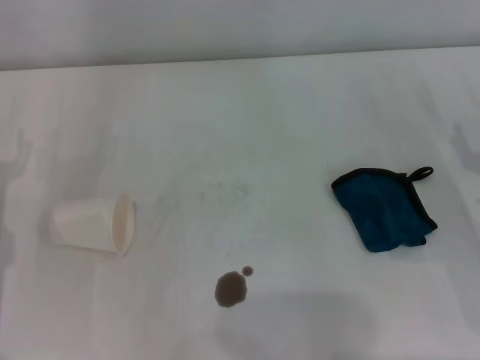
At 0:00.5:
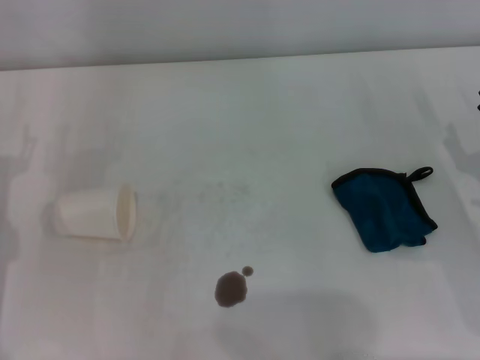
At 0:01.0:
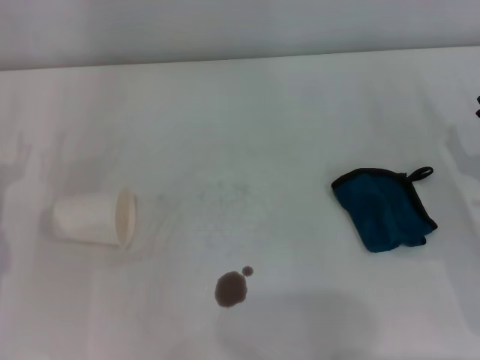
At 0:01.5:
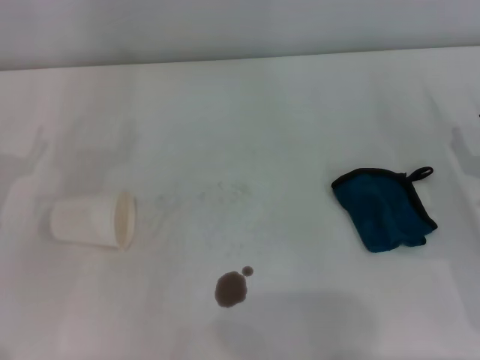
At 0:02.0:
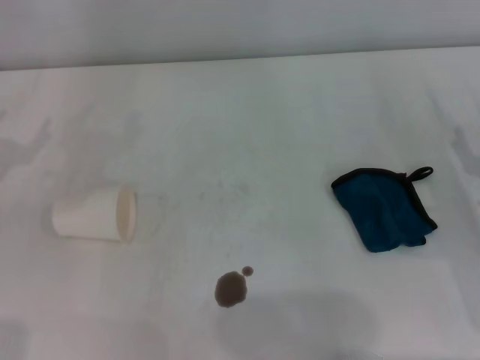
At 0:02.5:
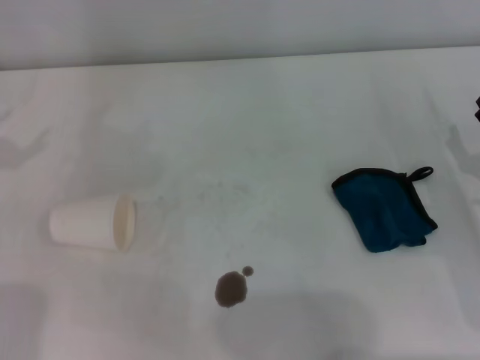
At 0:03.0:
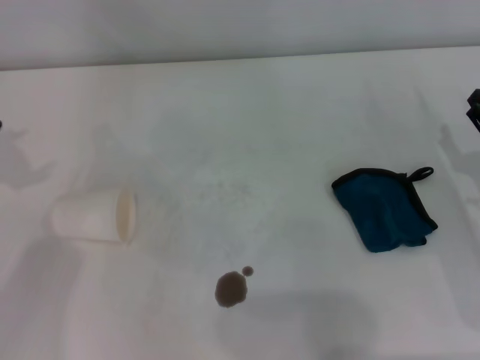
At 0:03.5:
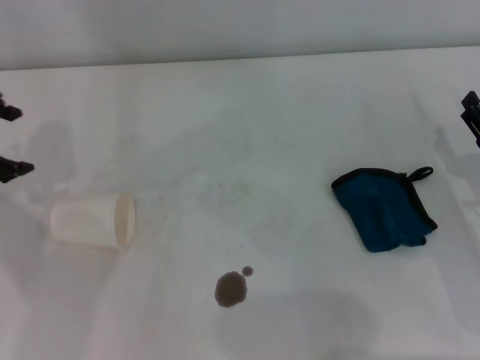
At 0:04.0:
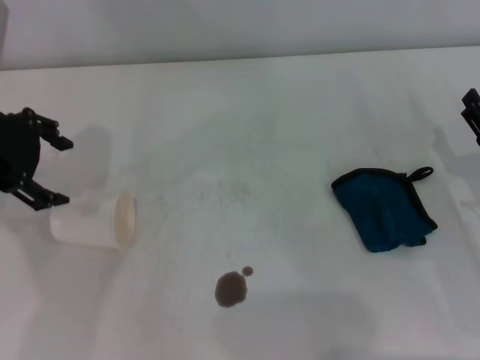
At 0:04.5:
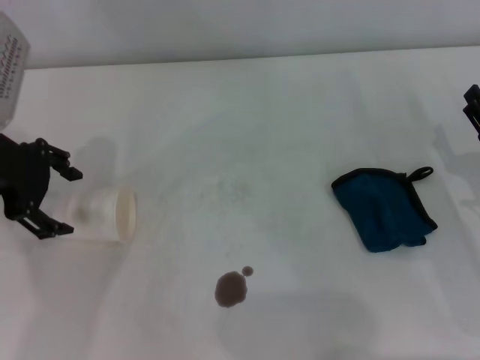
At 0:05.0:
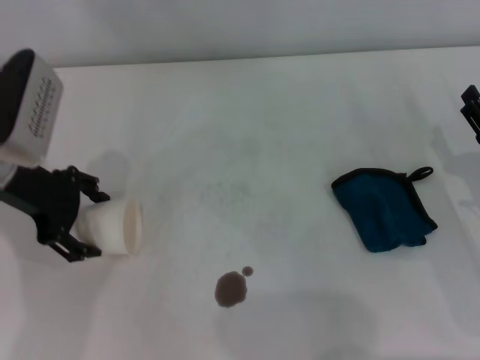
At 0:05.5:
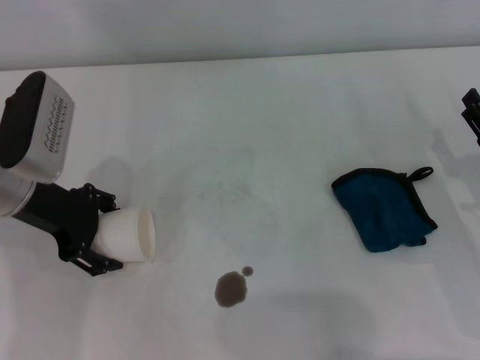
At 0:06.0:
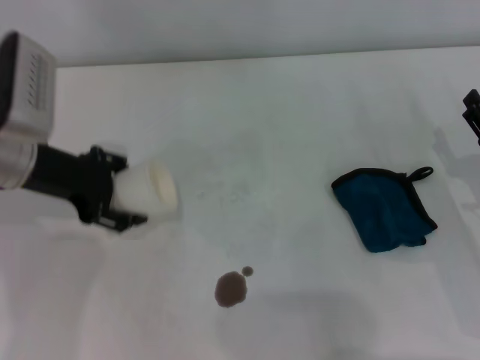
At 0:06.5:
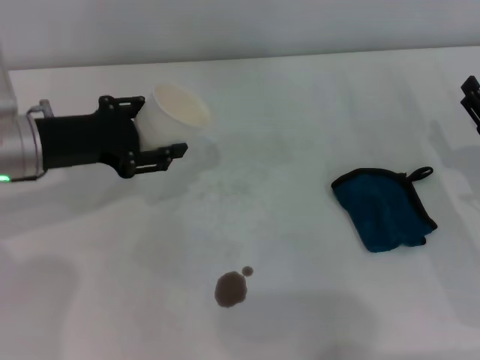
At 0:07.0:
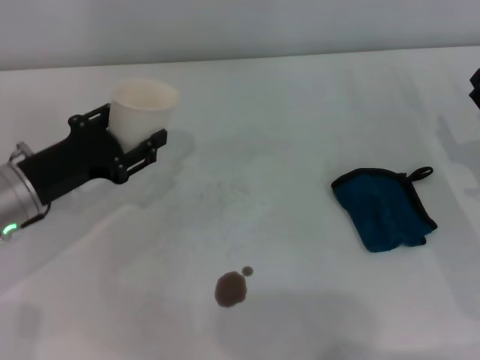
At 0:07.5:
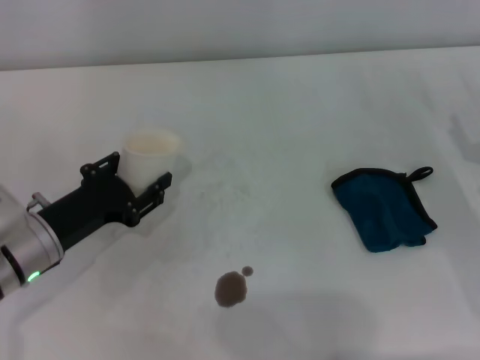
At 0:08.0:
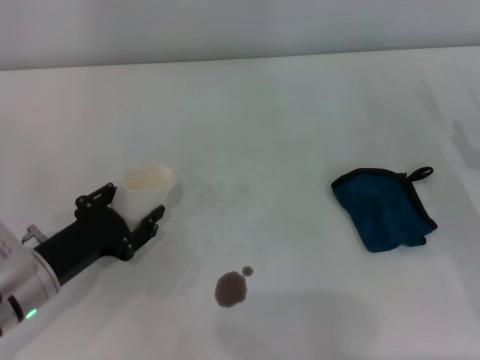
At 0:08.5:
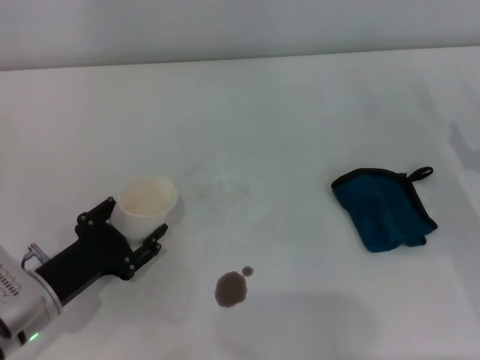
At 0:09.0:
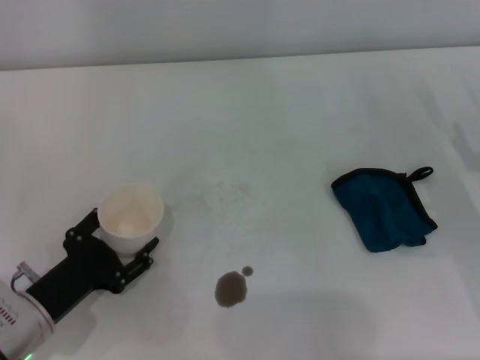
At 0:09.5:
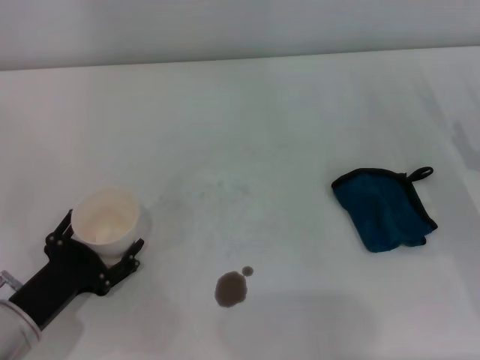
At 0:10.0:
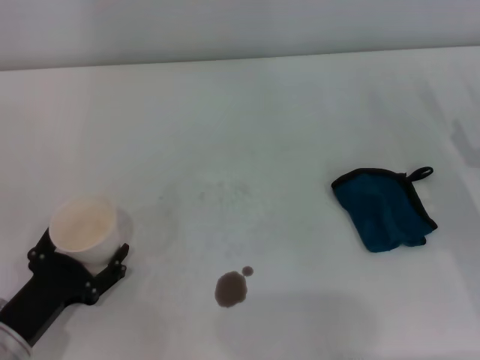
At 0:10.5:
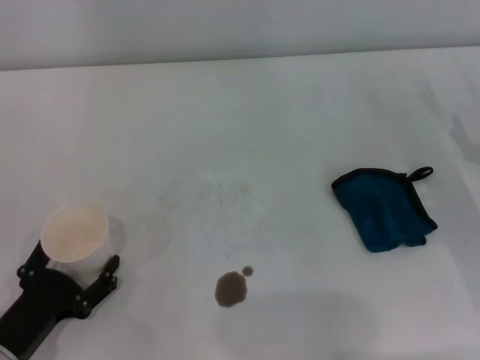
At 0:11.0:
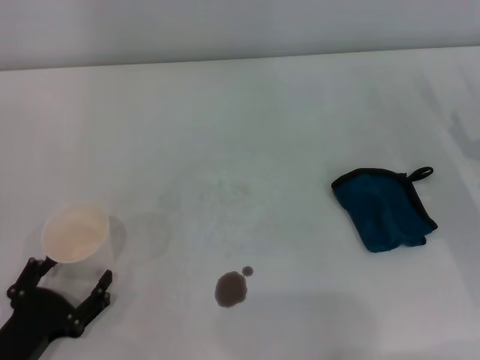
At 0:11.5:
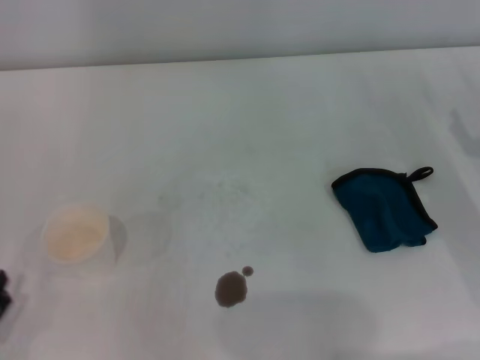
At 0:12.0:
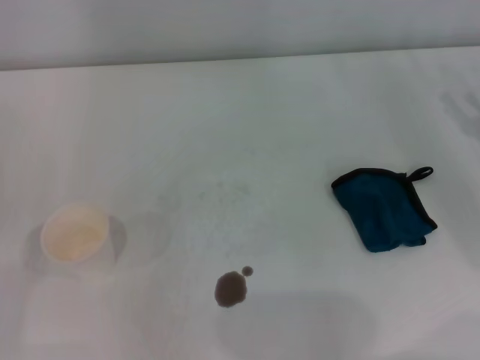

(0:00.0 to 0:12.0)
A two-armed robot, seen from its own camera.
Step, 0:00.0 - 0:05.0: Grasp the paper cup with the left gripper.
Step, 0:05.5 - 0:10.0: Stand the paper cup upright with the left gripper.
0:02.0 - 0:04.0: The left gripper heads upward, to the right and forward, covering some 15 cm.
0:04.0 - 0:06.0: The left gripper is displaced downward by roughly 5 cm, and closes its fingers.
0:06.0 - 0:08.0: The left gripper moves downward and backward, about 15 cm, and closes up.
0:08.0 - 0:10.0: The left gripper travels backward by some 5 cm, and opens its fingers.
0:10.0 - 0:12.0: The left gripper shifts roughly 10 cm to the left.

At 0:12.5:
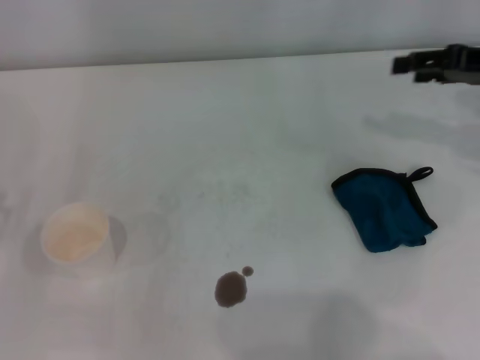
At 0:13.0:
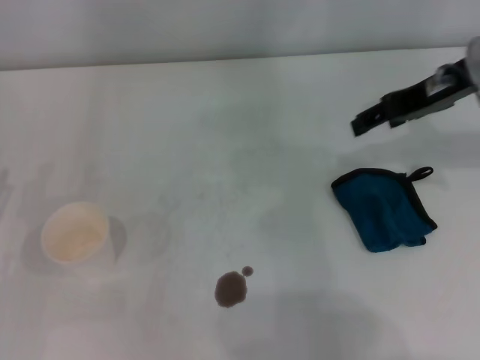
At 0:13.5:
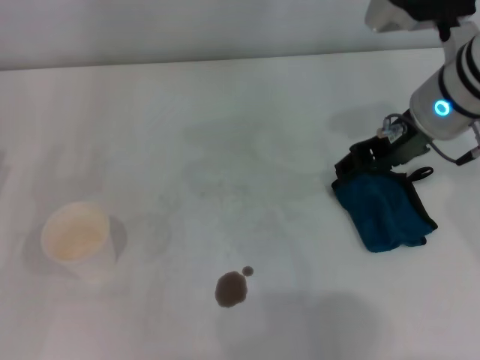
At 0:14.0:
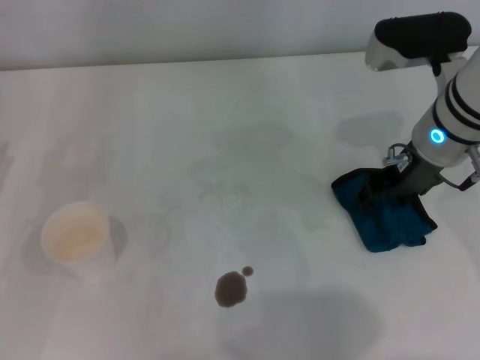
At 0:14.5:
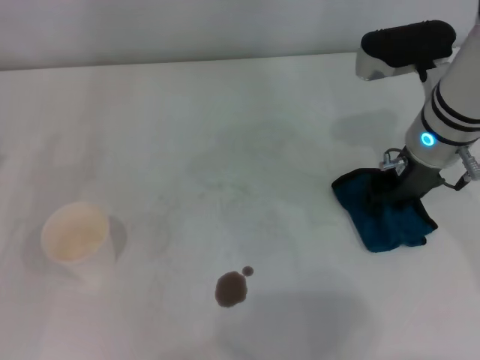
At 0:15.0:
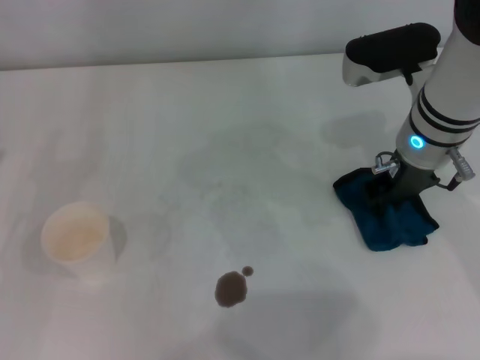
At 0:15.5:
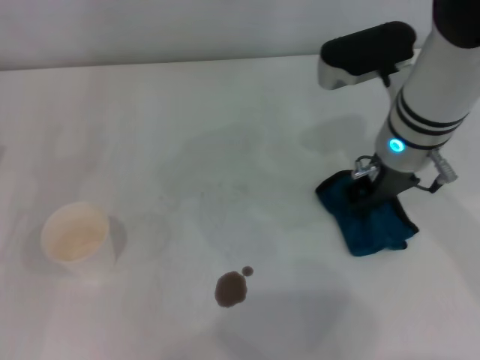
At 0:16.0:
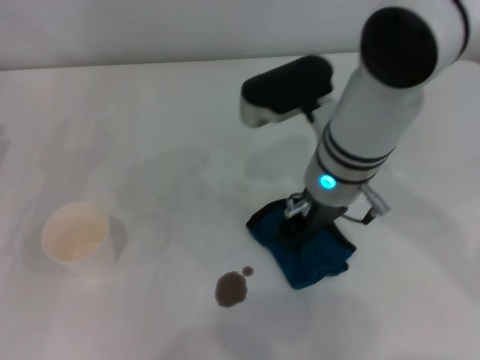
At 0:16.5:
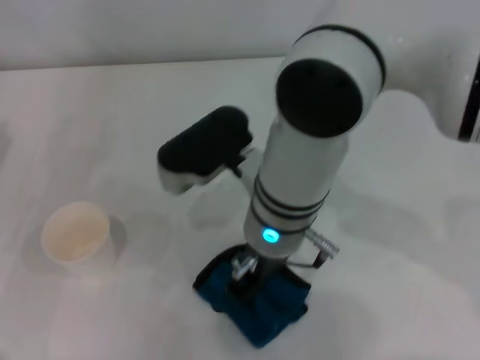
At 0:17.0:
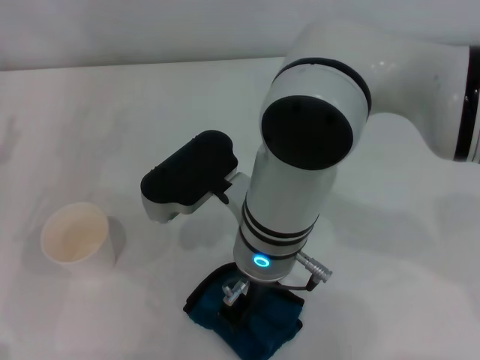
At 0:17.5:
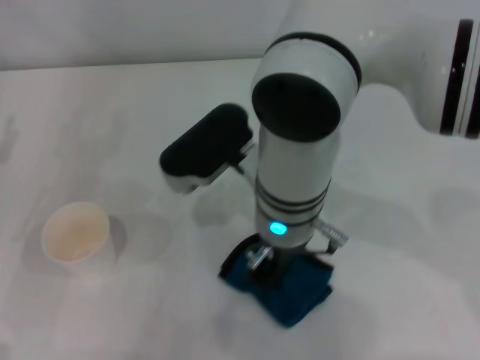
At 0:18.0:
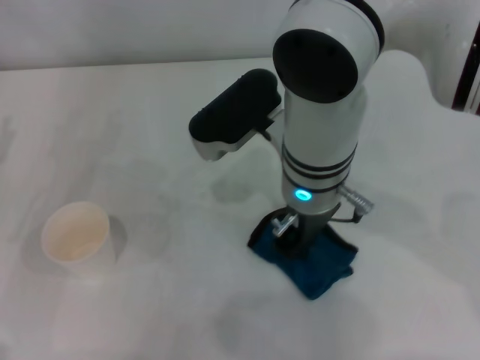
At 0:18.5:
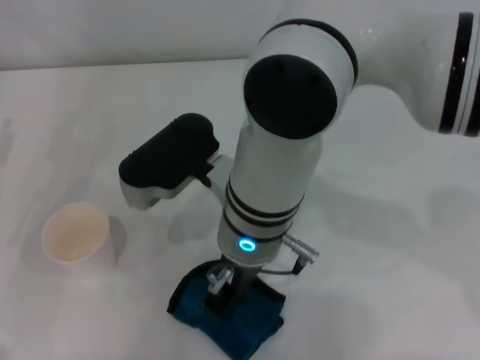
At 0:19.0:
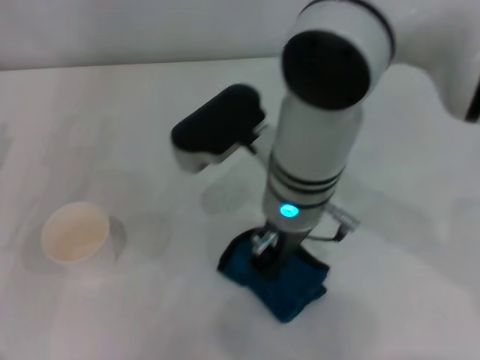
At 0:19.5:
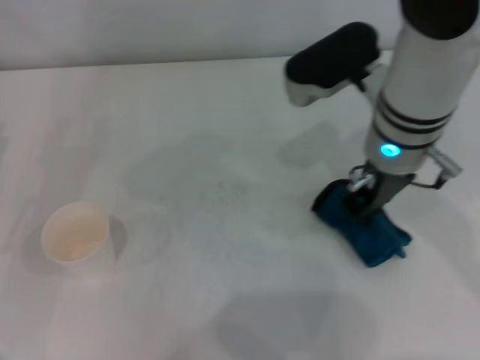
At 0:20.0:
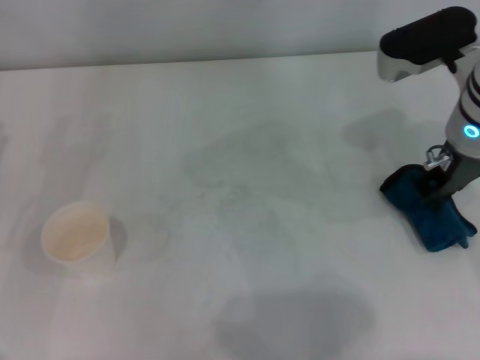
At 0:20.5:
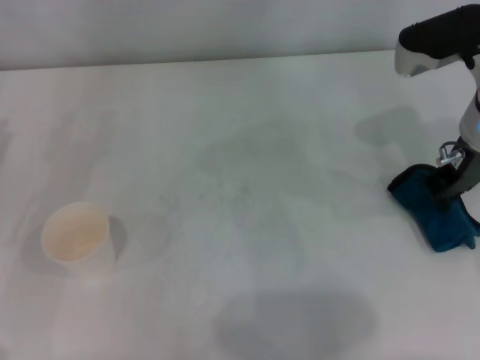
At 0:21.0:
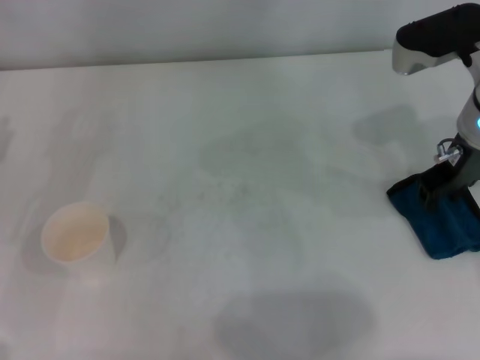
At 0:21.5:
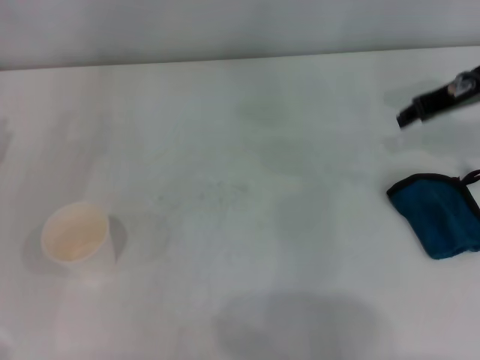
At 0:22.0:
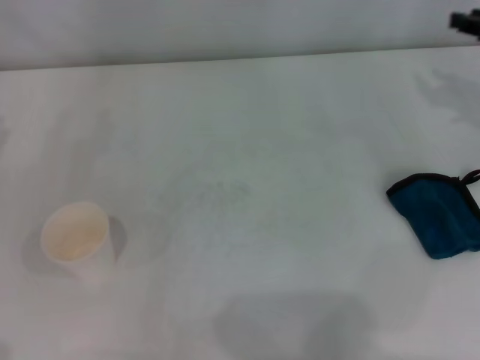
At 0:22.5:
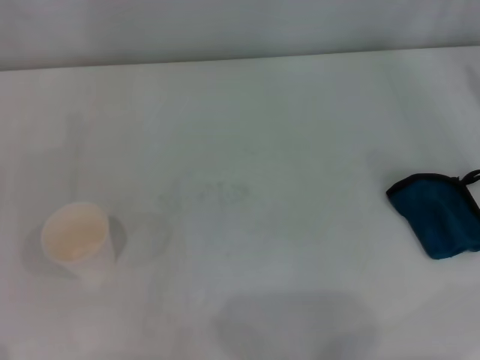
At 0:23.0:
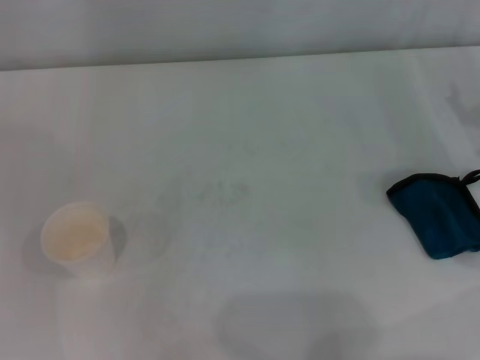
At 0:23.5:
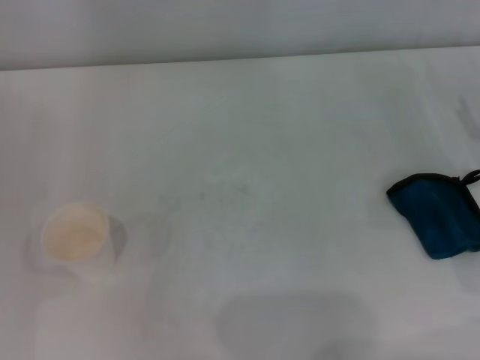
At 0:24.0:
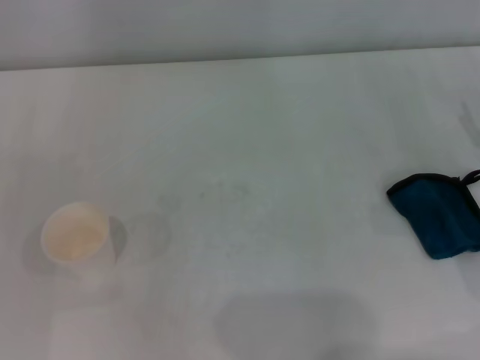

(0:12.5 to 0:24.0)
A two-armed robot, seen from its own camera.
Step, 0:12.5 - 0:15.0: Grasp the rag with the right gripper.
Step, 0:15.5 - 0:19.0: Wipe the stains off the table with the right gripper.
Step, 0:19.5 - 0:21.0: Place the rag on the table with the right gripper.
0:12.5 - 0:14.5: The right gripper is displaced to the left by about 15 cm.
0:14.5 - 0:16.5: The right gripper travels to the left by roughly 15 cm, and closes.
0:16.5 - 0:18.5: The grippers move only a little.
0:18.5 - 0:20.0: The right gripper heads to the right, covering about 20 cm.
0:20.0 - 0:22.0: The right gripper travels to the right by about 15 cm, and opens.
0:22.0 - 0:24.0: The right gripper goes roughly 15 cm downward and backward, and opens up.

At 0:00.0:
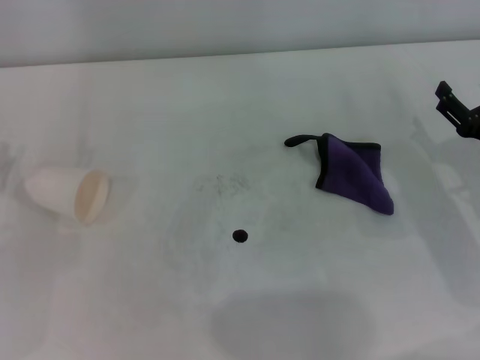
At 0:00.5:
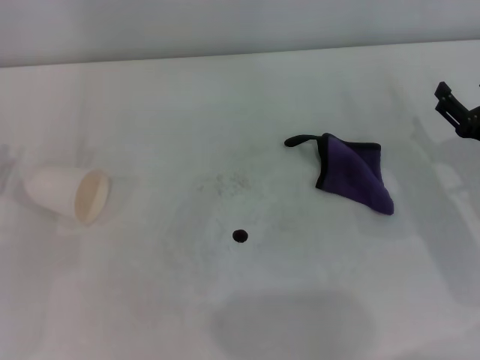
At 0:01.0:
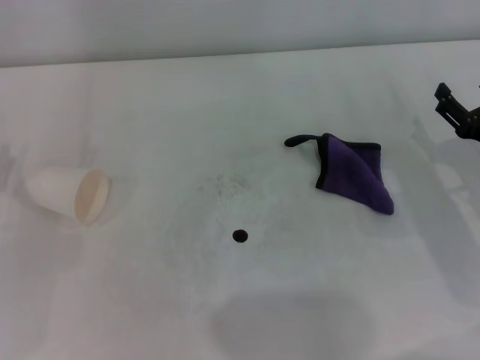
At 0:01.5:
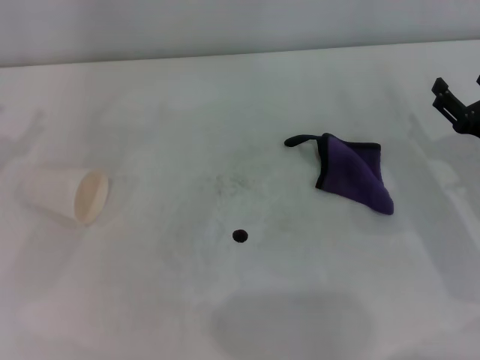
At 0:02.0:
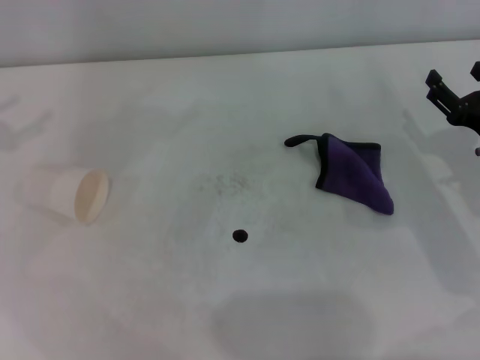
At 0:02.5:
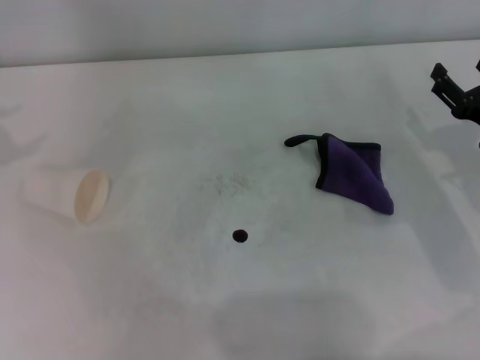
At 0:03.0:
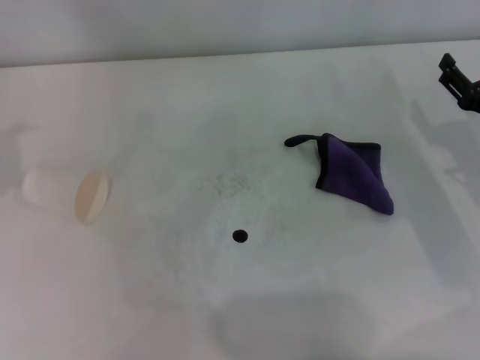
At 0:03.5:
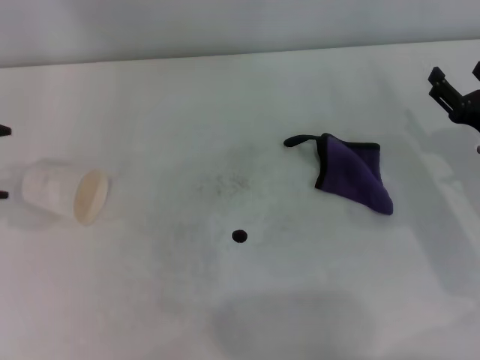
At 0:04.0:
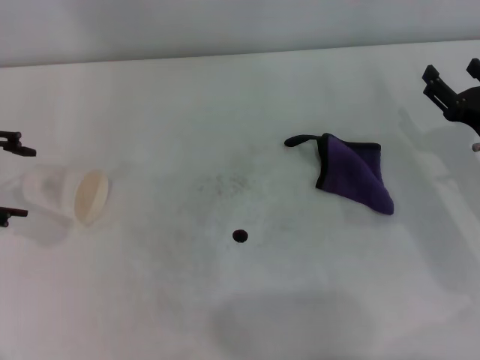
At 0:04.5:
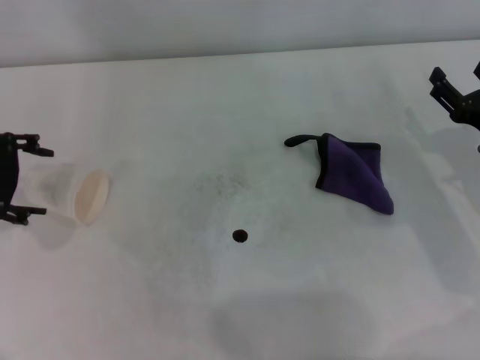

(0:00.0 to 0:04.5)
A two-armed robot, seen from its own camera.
0:02.0 - 0:04.5: The left gripper shifts about 15 cm to the right and downward.
